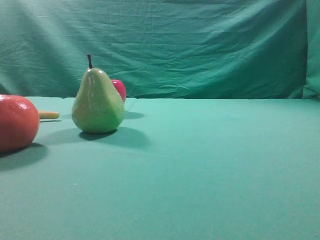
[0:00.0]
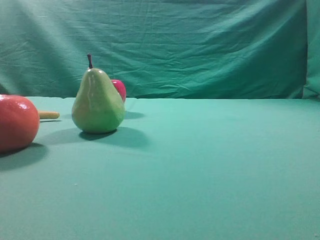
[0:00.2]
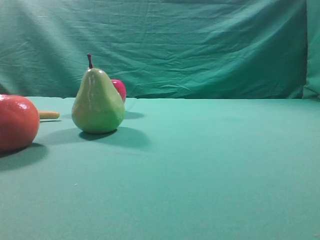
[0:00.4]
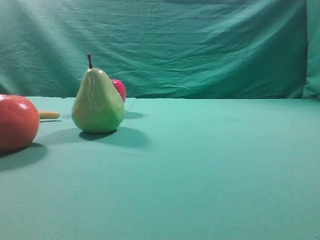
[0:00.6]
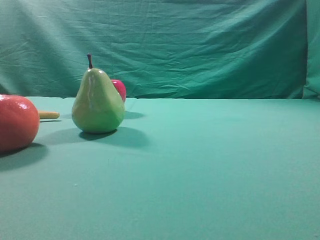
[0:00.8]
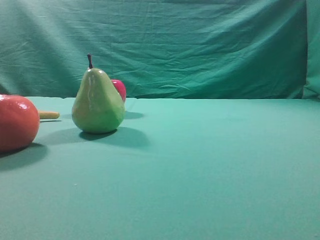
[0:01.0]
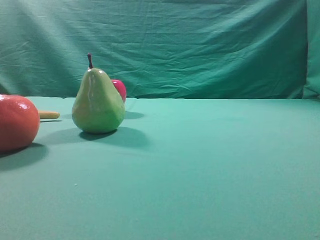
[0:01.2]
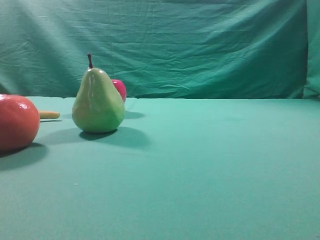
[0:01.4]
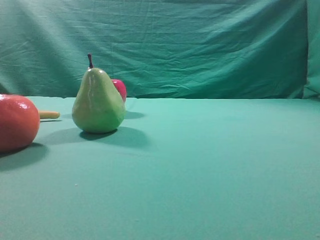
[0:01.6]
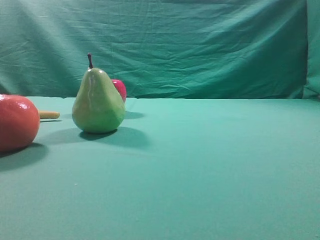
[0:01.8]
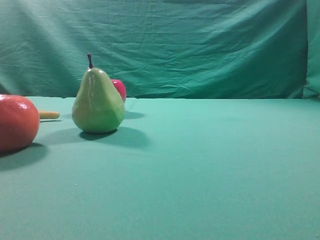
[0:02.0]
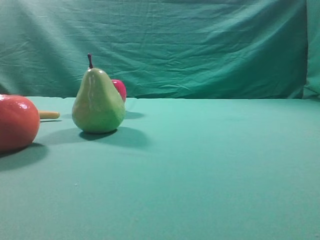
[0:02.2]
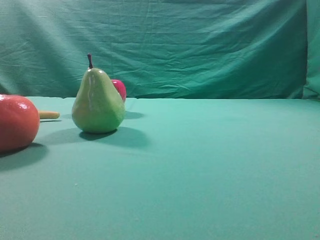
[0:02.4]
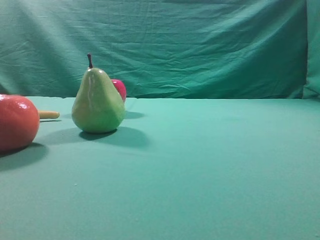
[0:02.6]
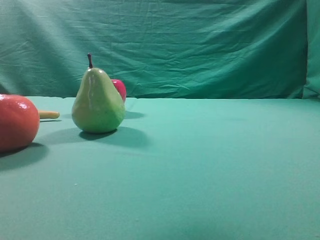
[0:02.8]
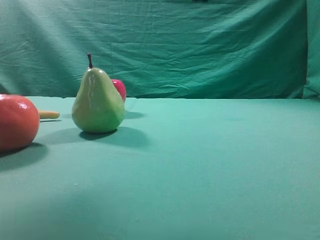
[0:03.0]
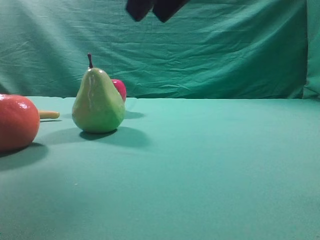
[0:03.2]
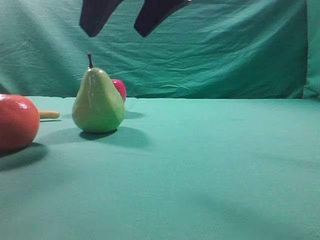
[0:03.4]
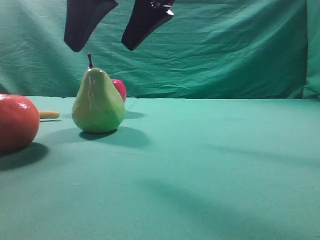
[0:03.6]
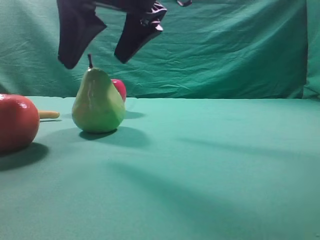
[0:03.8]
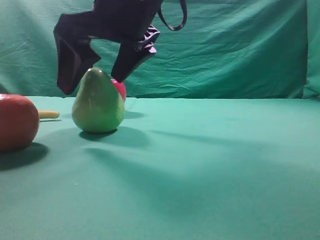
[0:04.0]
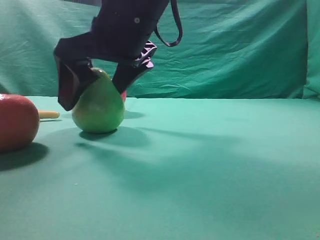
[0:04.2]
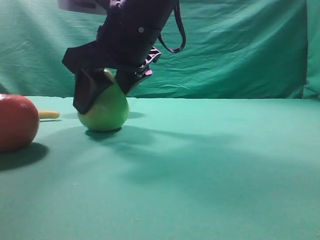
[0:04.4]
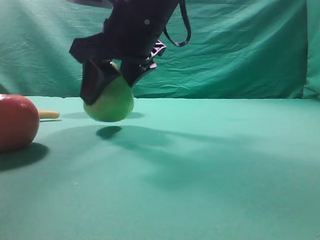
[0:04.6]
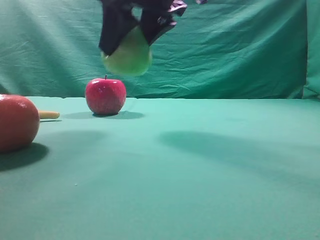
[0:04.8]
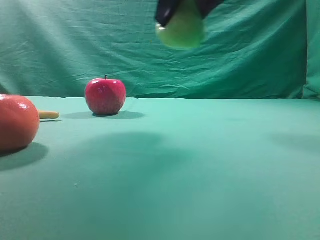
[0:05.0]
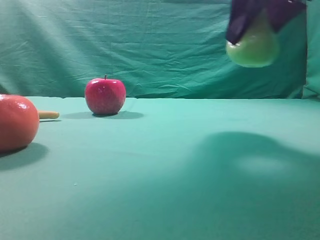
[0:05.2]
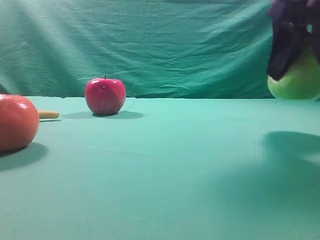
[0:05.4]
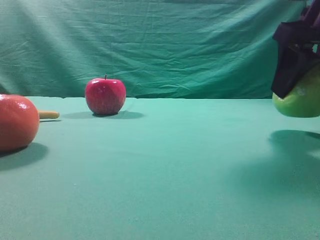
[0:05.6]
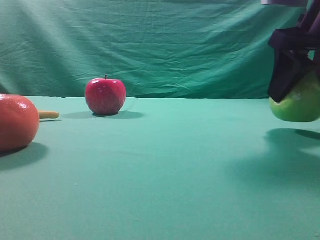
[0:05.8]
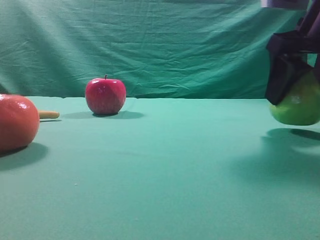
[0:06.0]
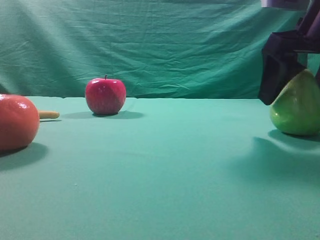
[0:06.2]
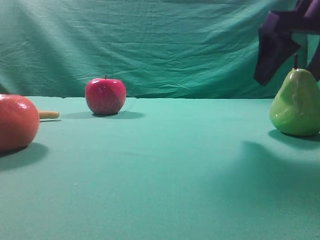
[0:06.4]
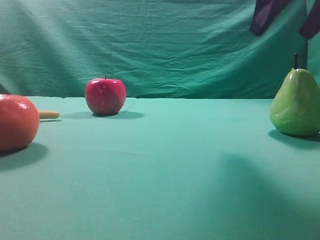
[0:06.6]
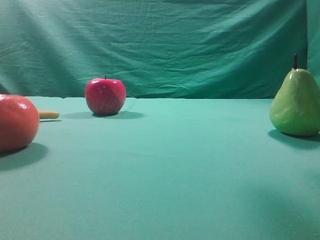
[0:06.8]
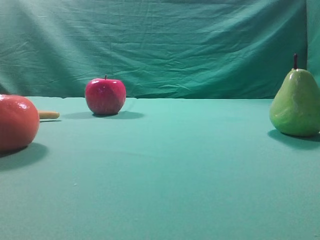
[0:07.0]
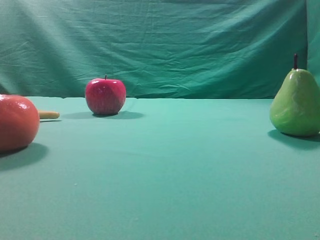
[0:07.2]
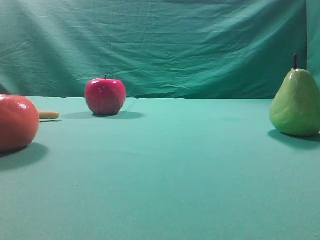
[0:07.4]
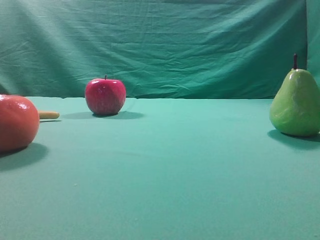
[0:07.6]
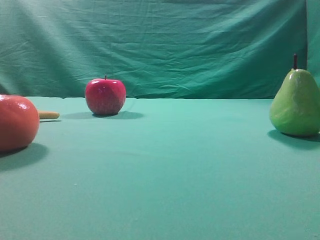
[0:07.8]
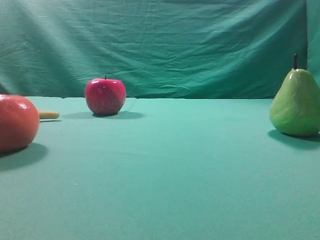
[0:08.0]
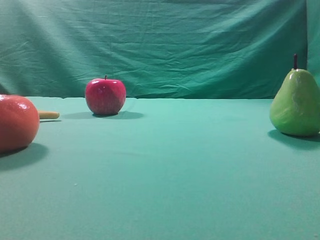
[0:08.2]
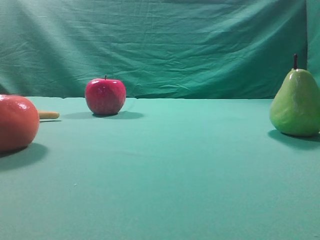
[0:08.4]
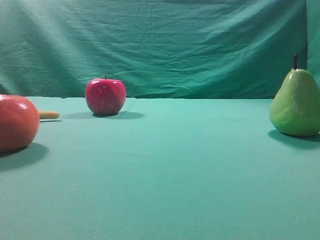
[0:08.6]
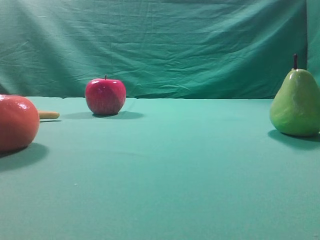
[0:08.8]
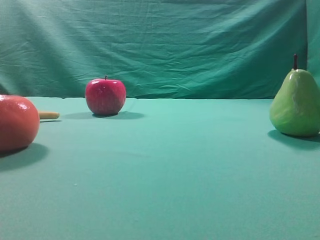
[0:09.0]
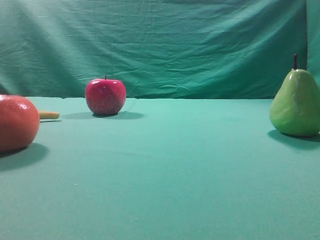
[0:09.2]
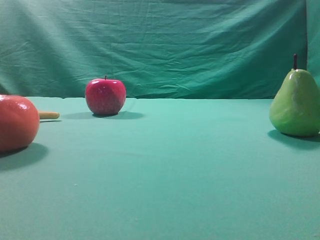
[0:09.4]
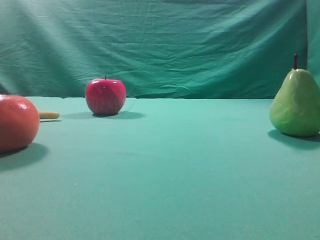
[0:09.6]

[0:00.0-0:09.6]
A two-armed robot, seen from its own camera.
Task of the whole recording: Grasp the pear and place it on one side of the table.
Step, 0:00.0 to 0:04.6: Grasp the high-fiber fruit.
Step, 0:04.8 to 0:06.4: Place it on the right side of the table.
